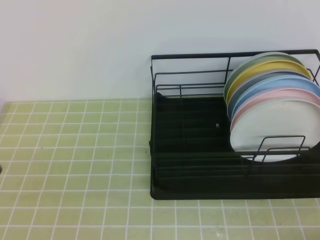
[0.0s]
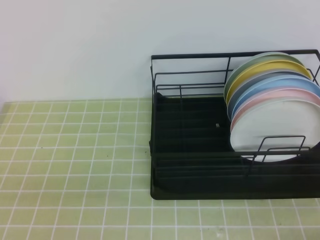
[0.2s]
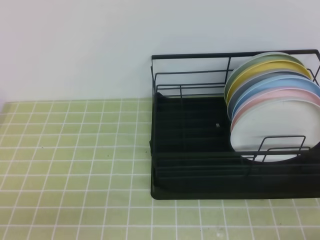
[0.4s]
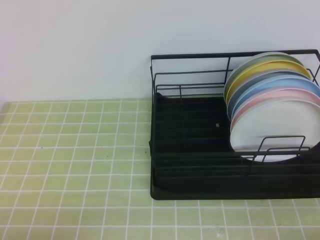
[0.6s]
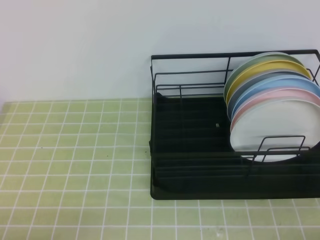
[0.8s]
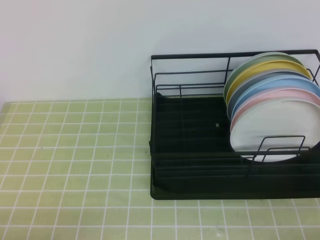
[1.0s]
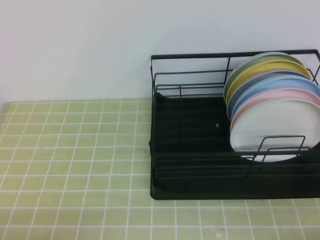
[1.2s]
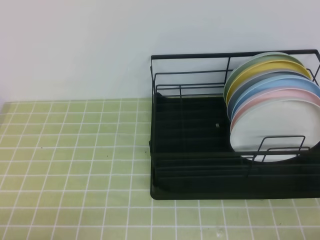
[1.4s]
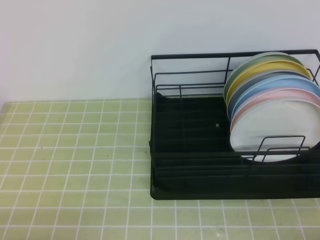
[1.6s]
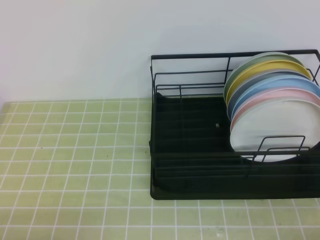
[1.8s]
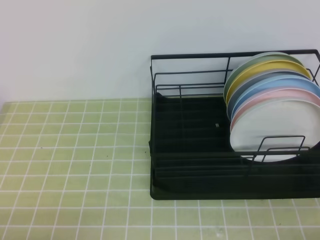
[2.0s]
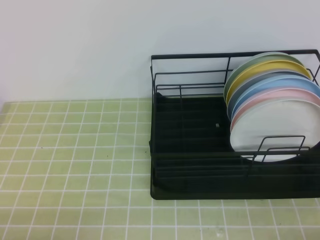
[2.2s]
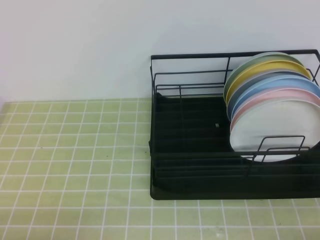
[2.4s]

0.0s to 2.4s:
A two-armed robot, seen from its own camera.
1.2s to 2.4s: Both grippers stay about where they are.
